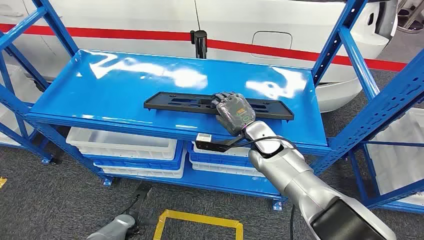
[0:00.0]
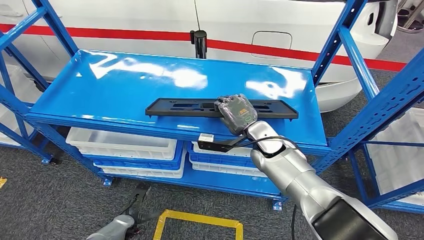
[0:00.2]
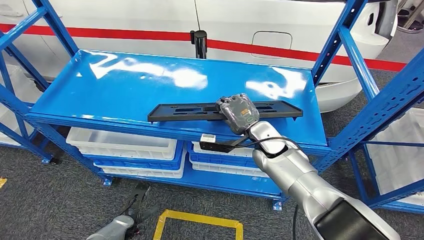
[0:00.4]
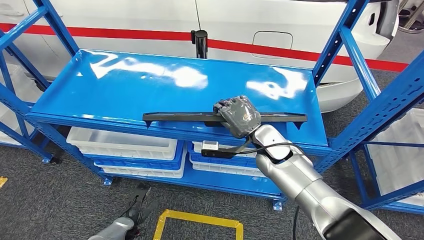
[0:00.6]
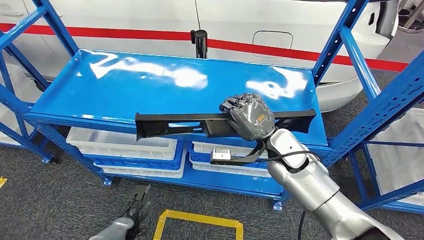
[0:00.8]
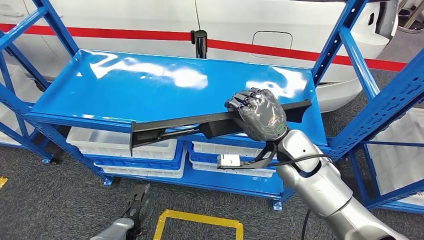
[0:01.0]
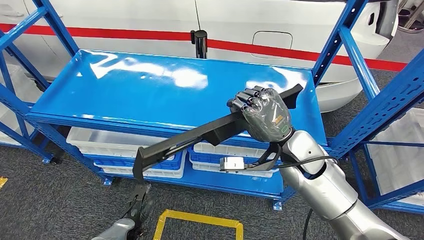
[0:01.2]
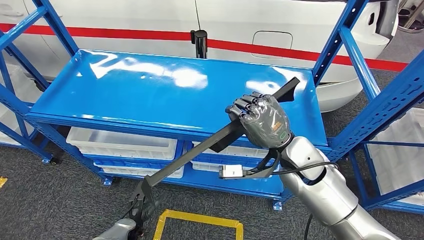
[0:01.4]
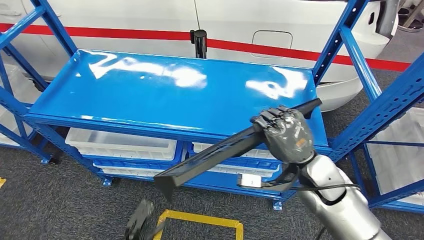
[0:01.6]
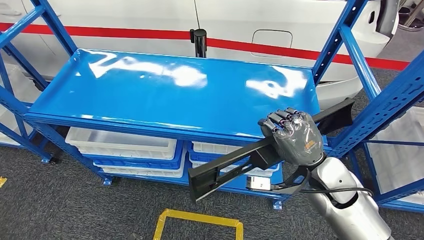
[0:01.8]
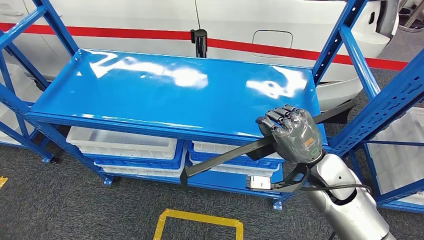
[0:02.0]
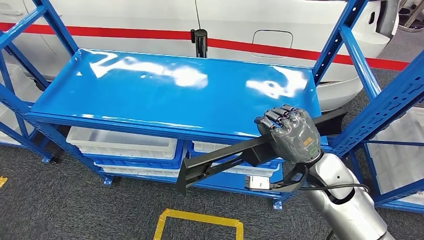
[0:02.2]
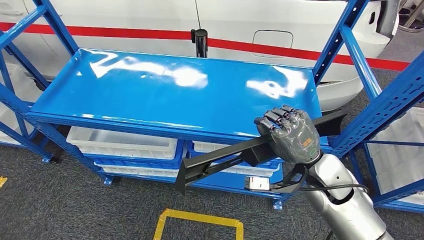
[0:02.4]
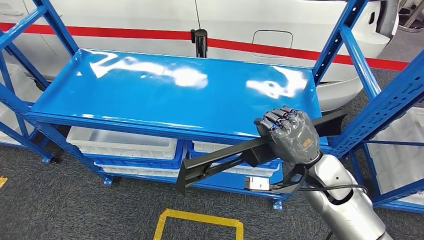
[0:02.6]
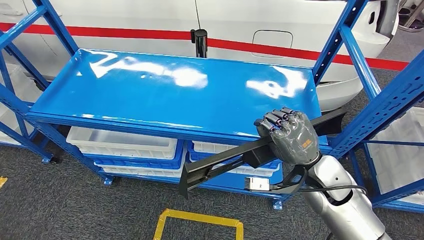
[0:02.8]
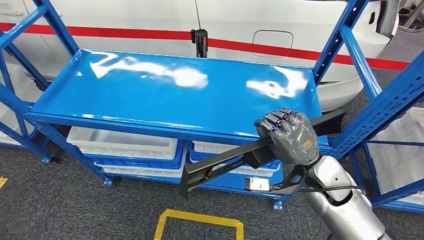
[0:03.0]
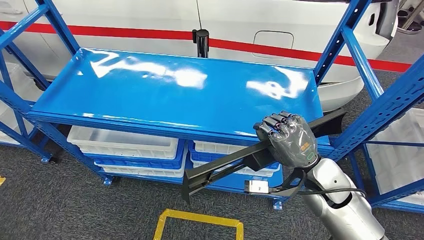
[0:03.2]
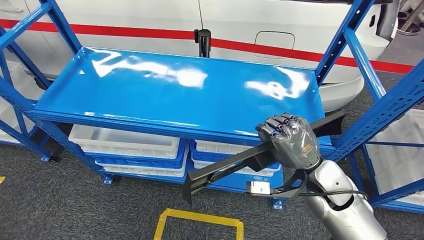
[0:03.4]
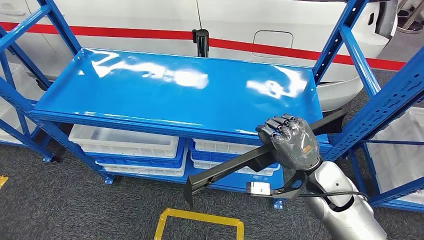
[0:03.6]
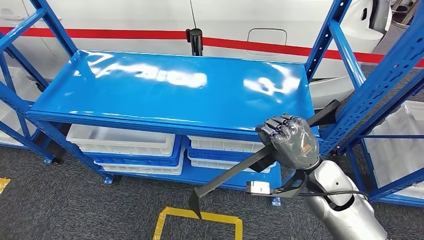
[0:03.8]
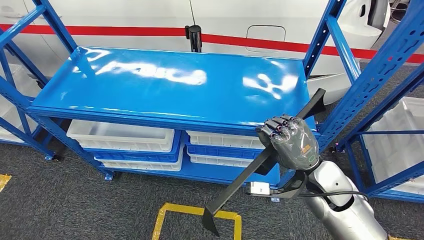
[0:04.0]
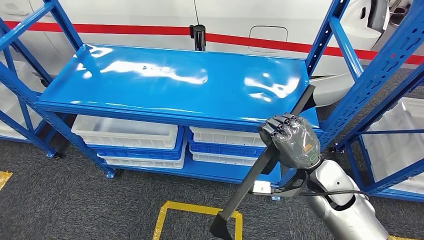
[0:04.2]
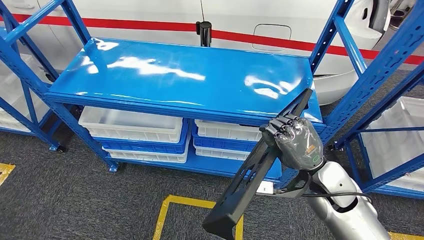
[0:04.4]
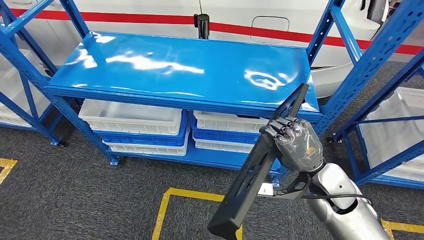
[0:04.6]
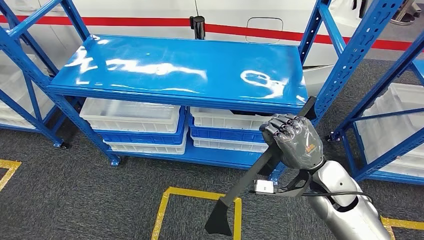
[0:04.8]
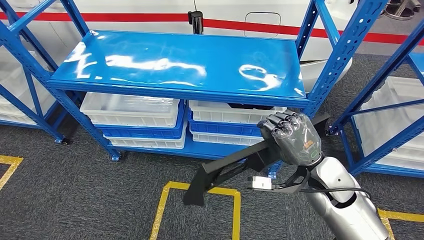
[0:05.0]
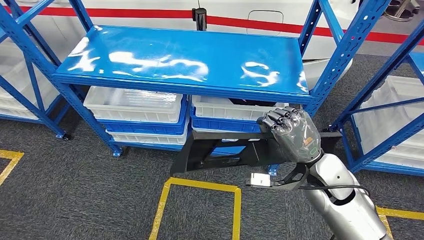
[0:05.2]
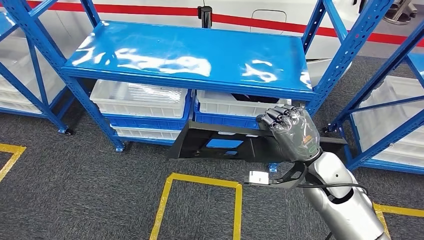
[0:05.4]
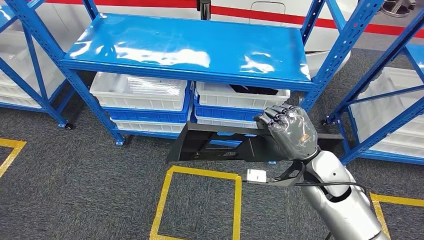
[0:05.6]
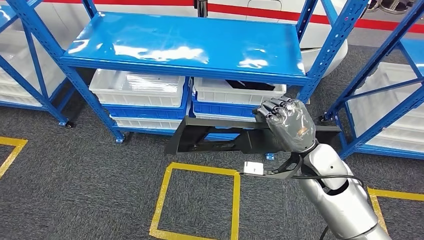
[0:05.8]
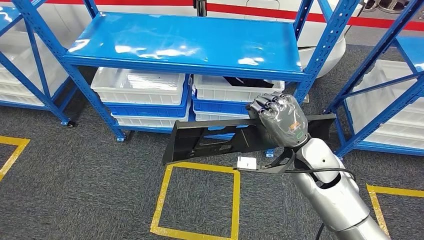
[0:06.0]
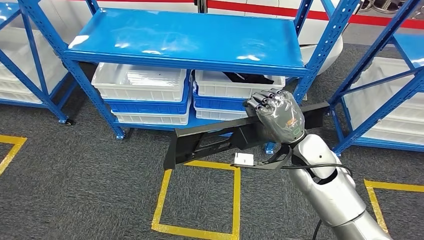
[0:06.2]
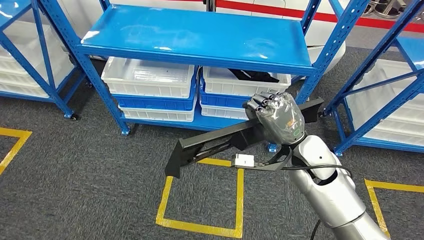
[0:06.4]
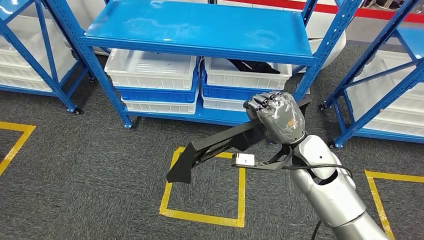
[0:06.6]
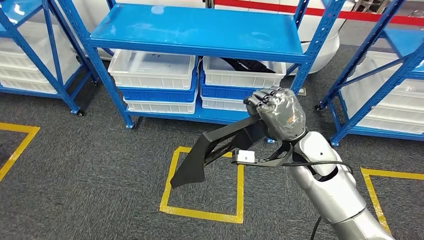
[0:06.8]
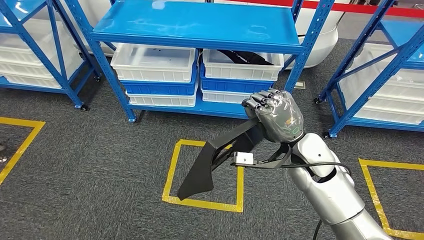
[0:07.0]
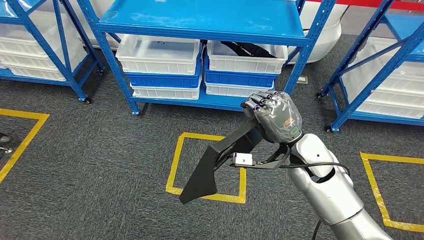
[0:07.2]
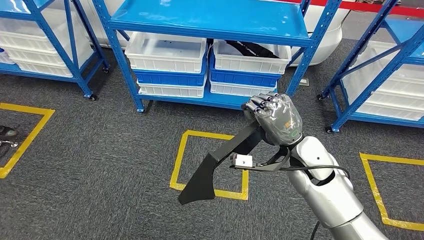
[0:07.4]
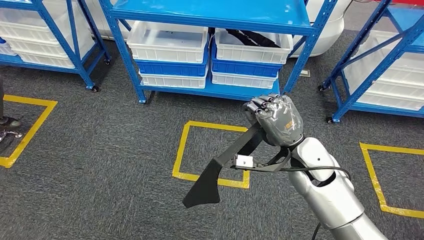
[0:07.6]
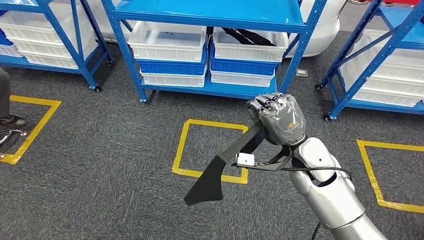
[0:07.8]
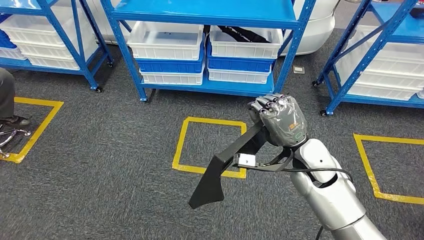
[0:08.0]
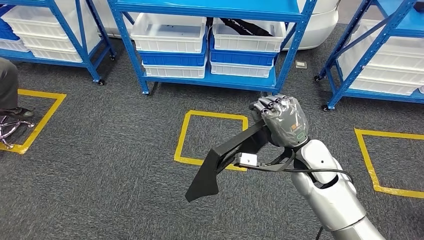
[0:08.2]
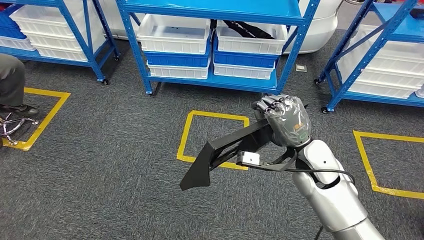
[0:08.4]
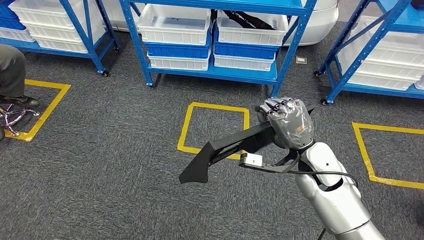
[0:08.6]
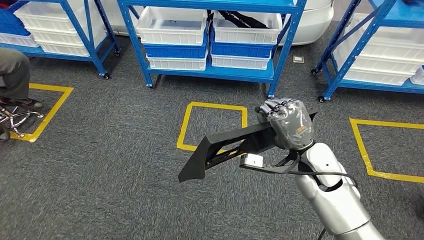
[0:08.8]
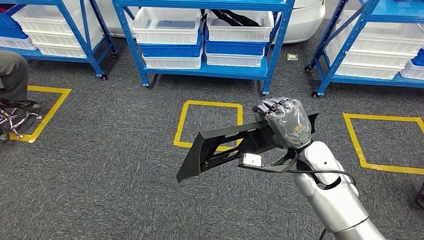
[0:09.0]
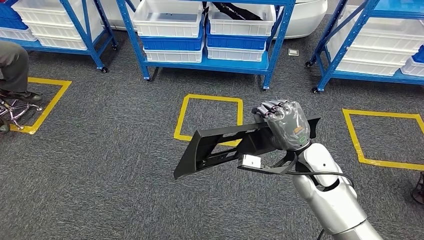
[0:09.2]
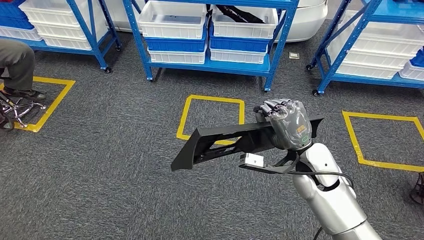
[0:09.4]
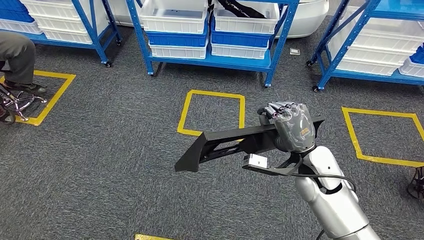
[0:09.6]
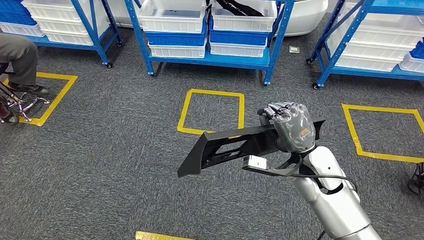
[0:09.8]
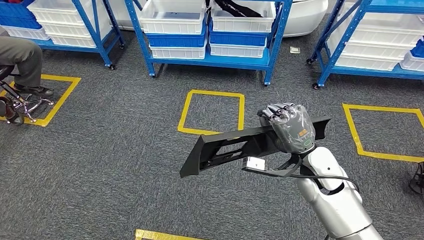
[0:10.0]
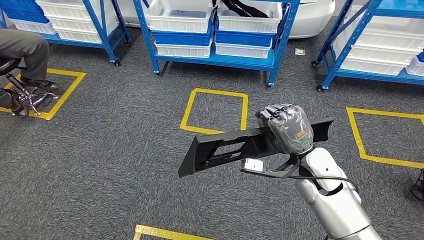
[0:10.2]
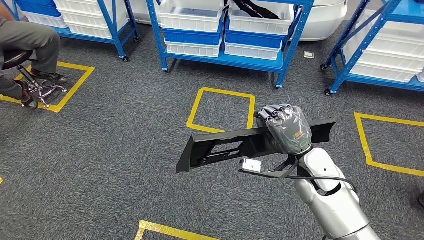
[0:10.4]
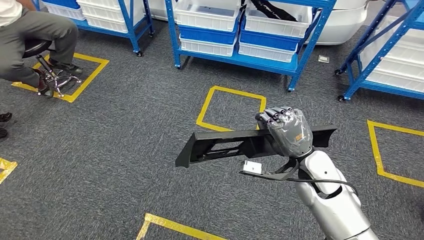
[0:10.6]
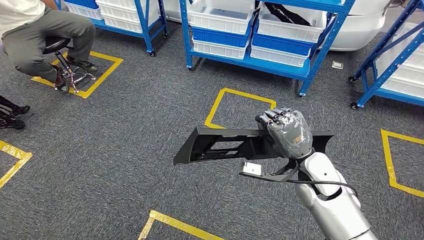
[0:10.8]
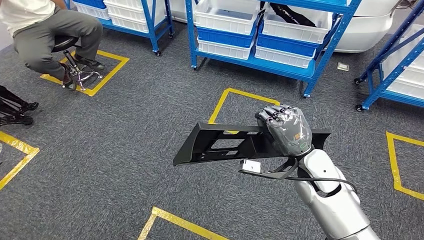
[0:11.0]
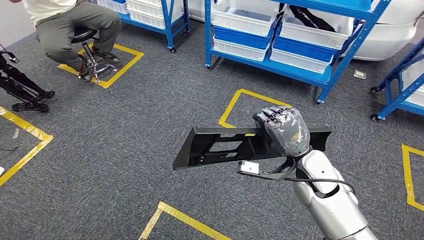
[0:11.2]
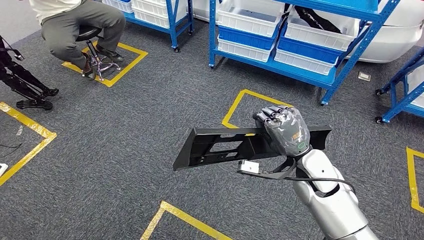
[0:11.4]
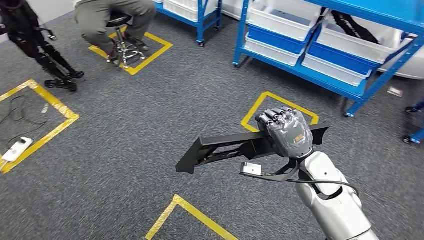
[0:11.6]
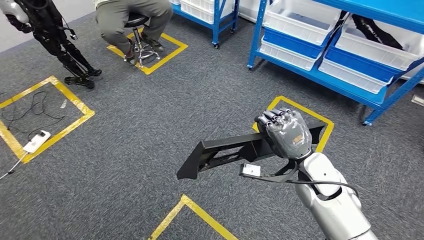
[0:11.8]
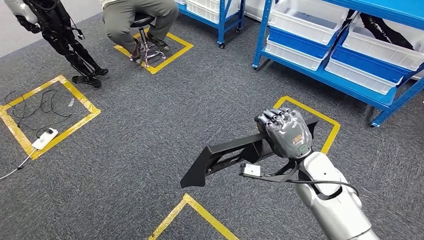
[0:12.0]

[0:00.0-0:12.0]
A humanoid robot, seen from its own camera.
Step, 0:00.0 to 0:03.2: Pick up the large material from the shelf.
0:01.6 to 0:03.0: The left hand is displaced backward by roughly 10 cm.

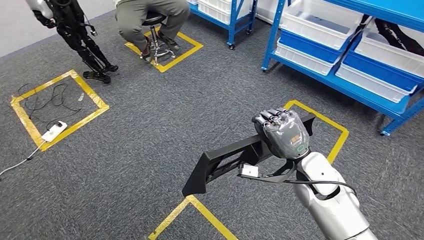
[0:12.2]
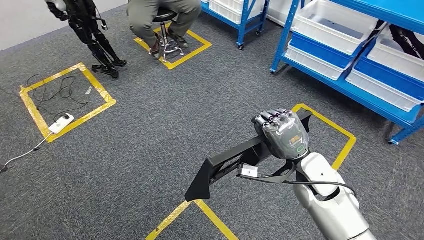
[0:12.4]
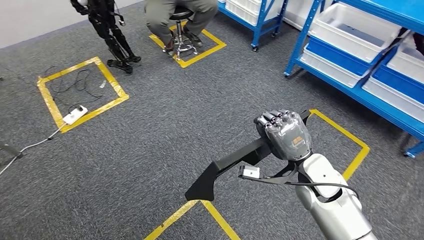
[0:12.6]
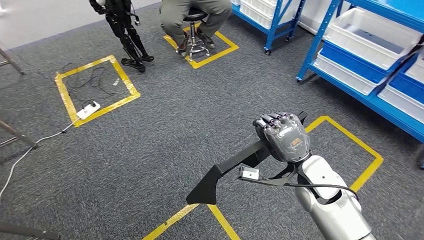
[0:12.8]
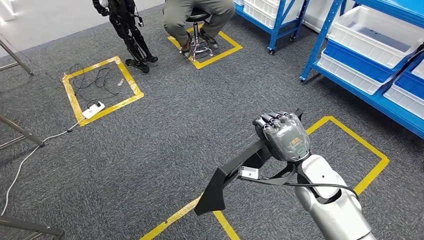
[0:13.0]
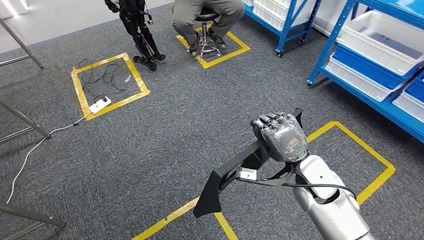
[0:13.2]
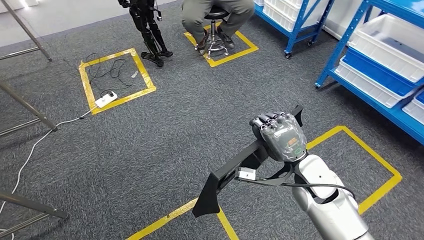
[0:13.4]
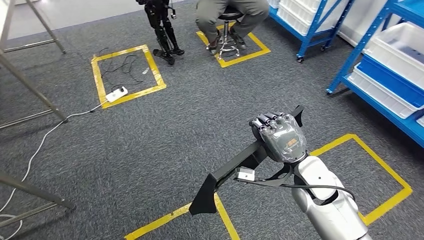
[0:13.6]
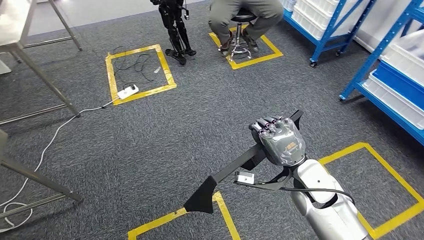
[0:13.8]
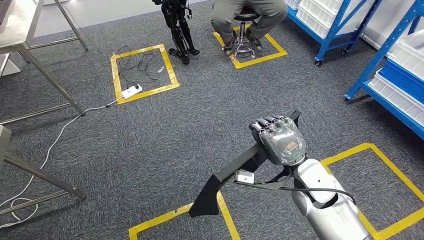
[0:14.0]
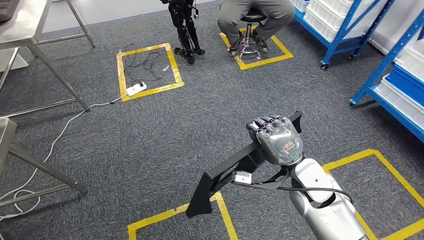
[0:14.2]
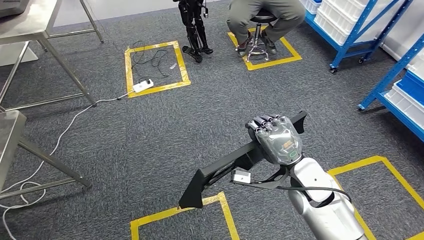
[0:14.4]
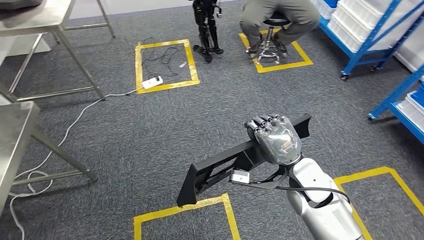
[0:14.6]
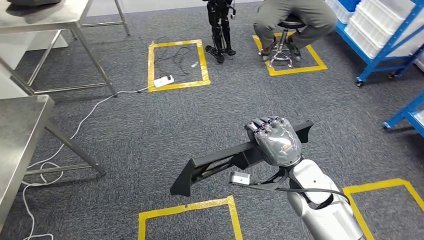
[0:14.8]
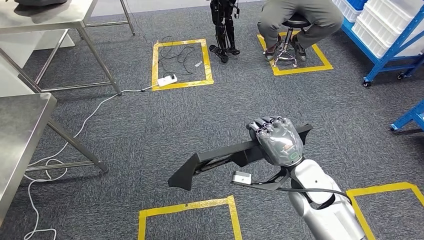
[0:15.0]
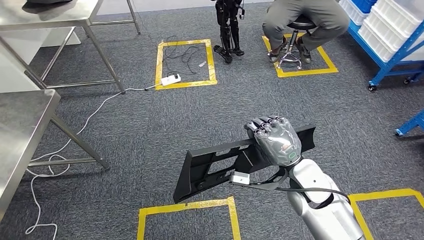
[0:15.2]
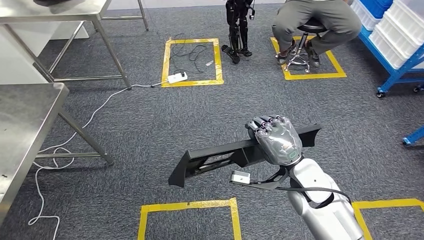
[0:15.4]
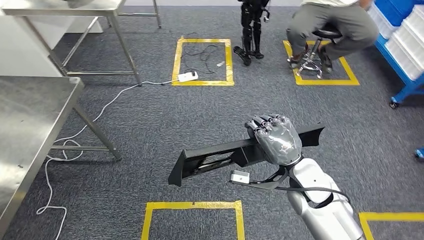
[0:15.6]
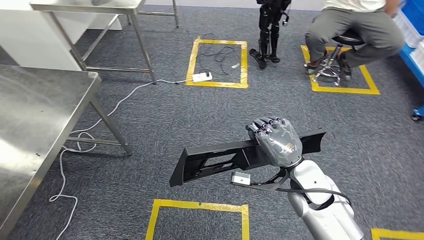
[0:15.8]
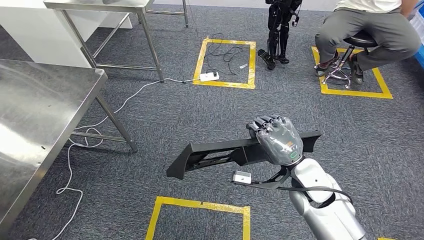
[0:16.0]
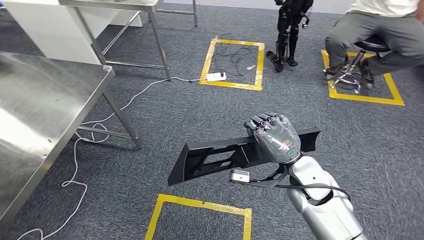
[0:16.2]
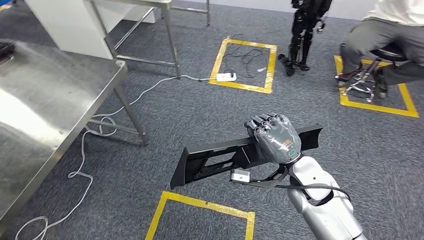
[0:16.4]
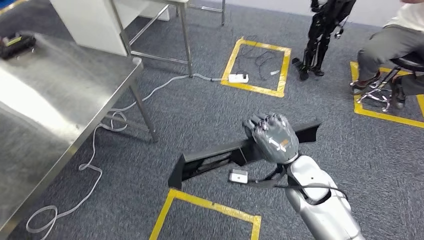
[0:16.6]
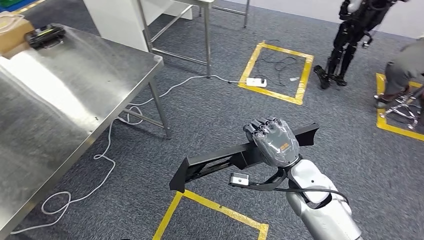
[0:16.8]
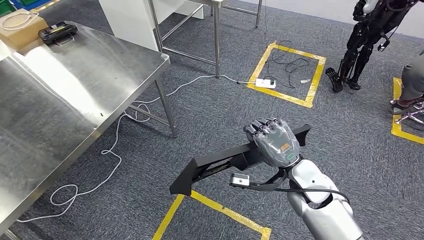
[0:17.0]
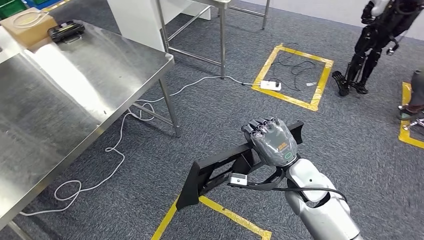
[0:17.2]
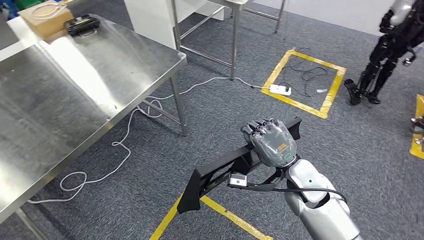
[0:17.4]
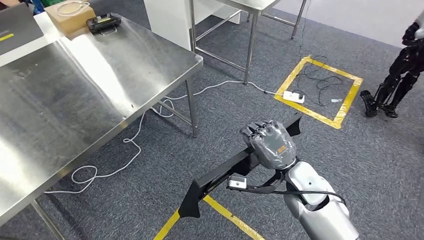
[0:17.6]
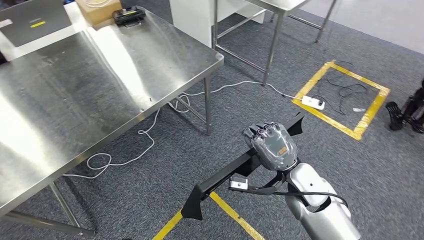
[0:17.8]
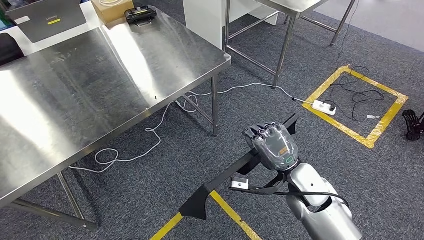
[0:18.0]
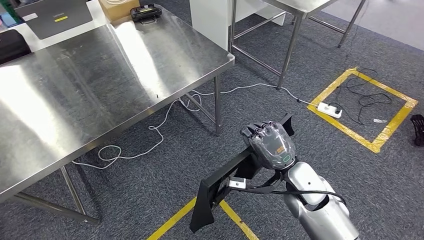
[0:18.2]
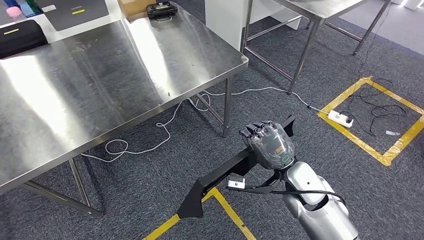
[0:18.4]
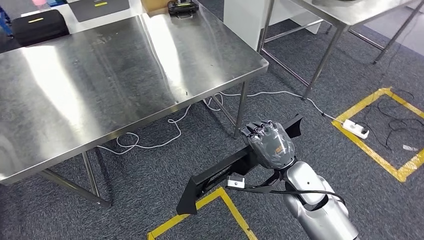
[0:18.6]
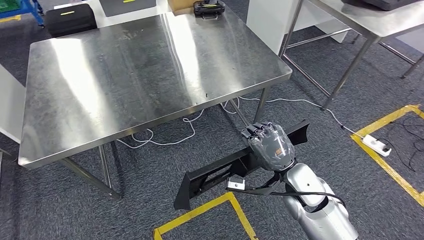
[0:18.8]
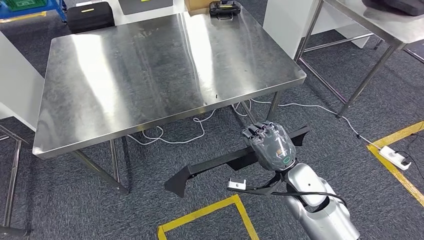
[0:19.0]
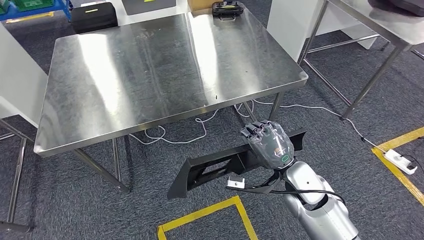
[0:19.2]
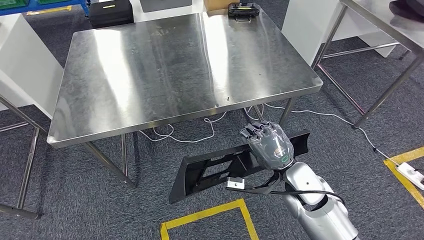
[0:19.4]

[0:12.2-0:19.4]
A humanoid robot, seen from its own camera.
Step, 0:12.2 to 0:18.0: Move the large material to the workbench.
